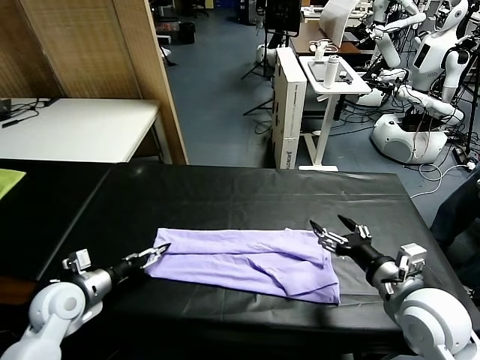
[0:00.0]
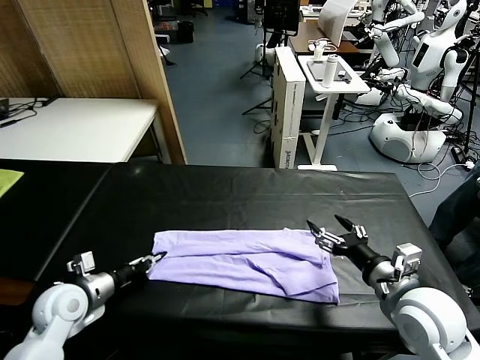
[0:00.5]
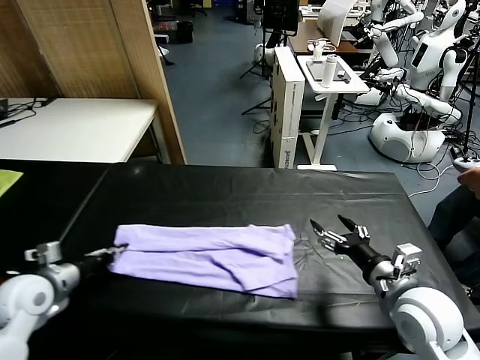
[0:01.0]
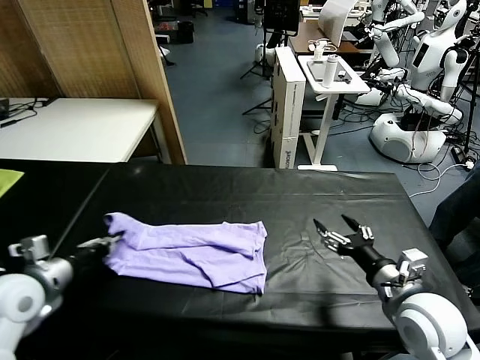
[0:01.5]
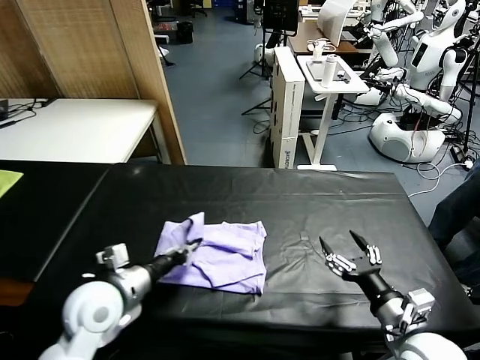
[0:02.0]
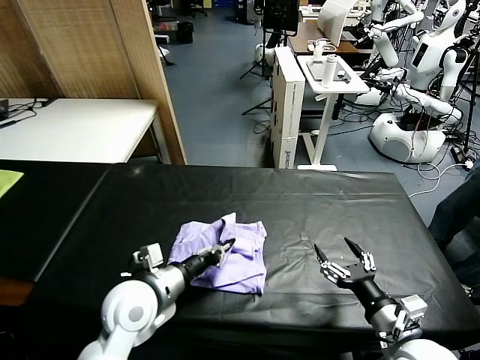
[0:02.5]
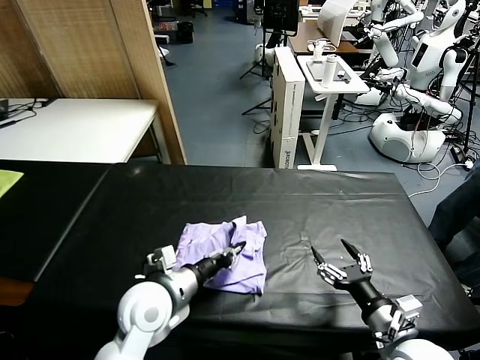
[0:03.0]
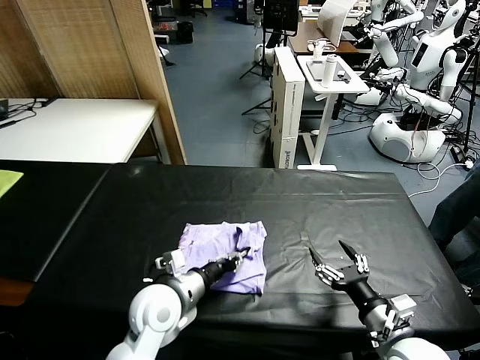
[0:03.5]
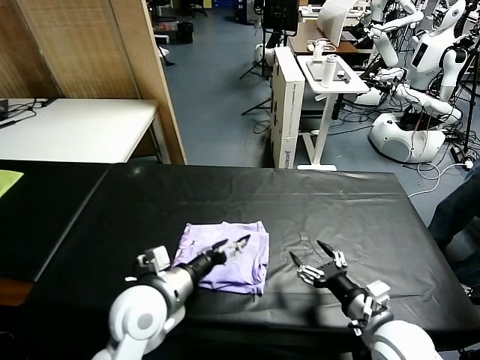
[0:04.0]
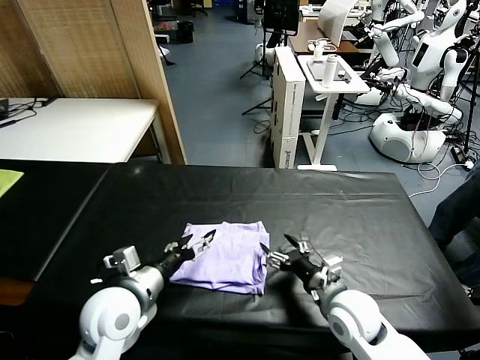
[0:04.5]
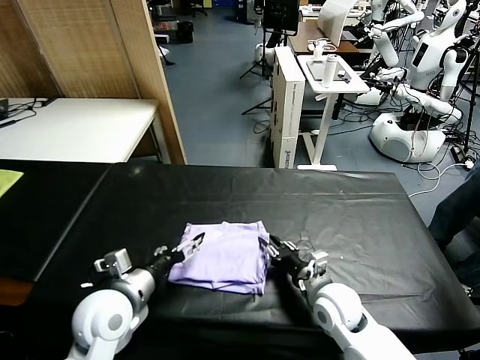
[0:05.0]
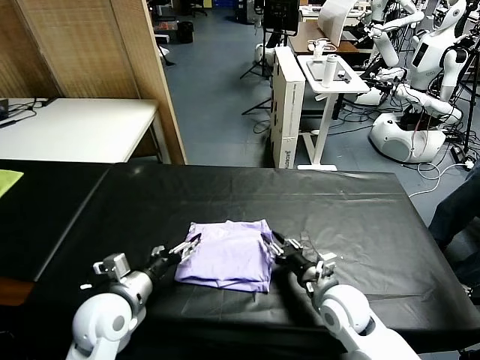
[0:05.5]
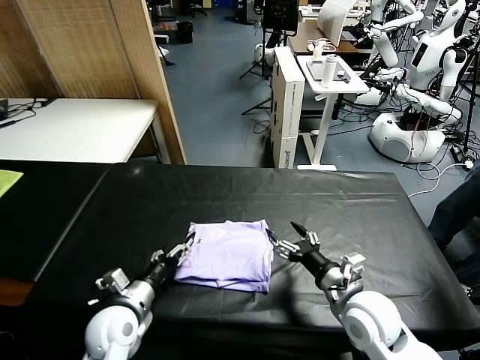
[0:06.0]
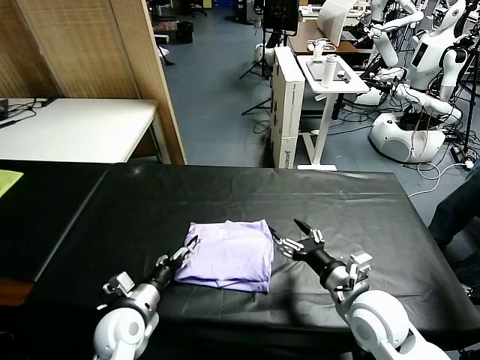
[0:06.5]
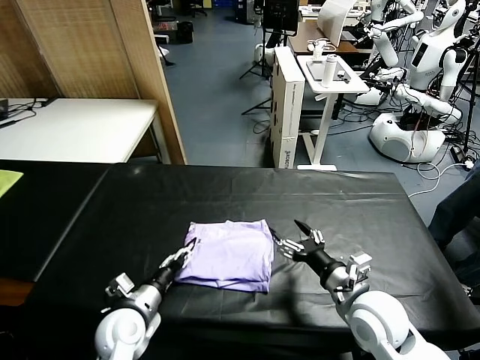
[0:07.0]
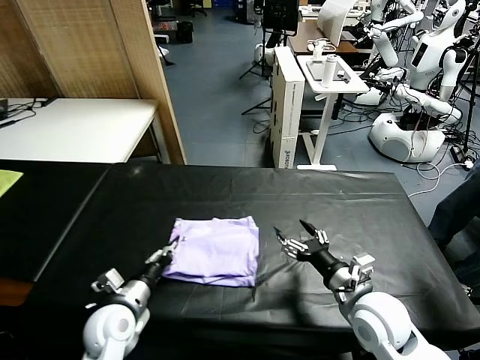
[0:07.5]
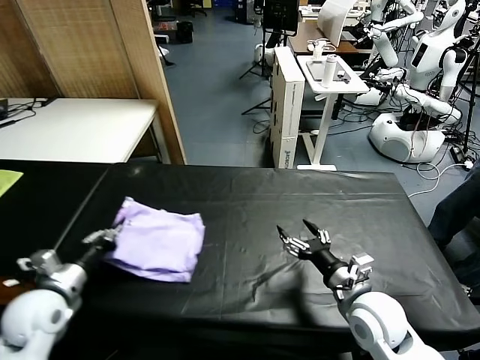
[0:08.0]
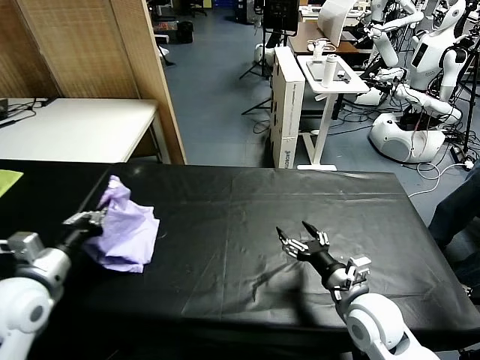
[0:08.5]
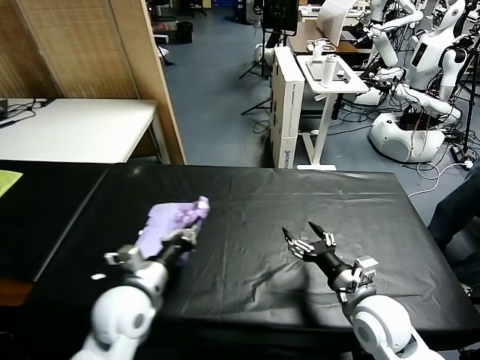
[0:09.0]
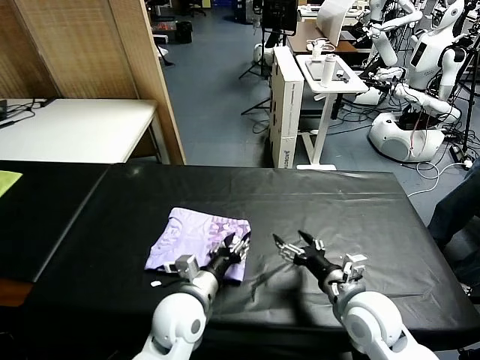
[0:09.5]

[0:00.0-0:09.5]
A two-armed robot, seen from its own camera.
Task of the whole recording: fold and organize the clothes.
Step, 0:01.0 to 0:03.5: use the left gripper to drag the left edge of the fabric to the left and folds it over the right edge.
0:00.0 to 0:02.0: The right gripper shifts about 10 cm backward and downward, while the left gripper goes some 15 cm to the right and upward, and closes up.
0:02.0 to 0:04.0: The right gripper changes place by about 5 cm, while the left gripper goes some 10 cm to the right, and opens its fingers.
0:04.0 to 0:05.5: The left gripper goes roughly 10 cm to the left. The right gripper is displaced forward and to the left by about 10 cm, and closes up.
0:05.5 to 0:07.5: The right gripper moves upward, approximately 5 cm, and opens up. The left gripper heads downward, covering approximately 10 cm, and closes up.
0:07.5 to 0:09.5: The left gripper is displaced to the right by about 15 cm, and opens.

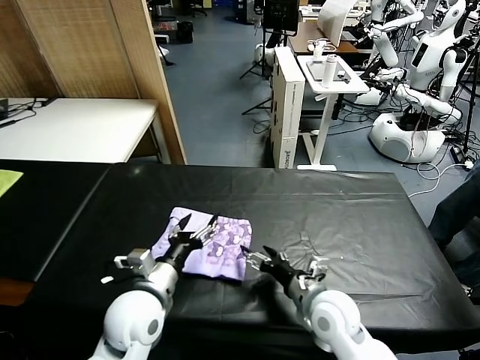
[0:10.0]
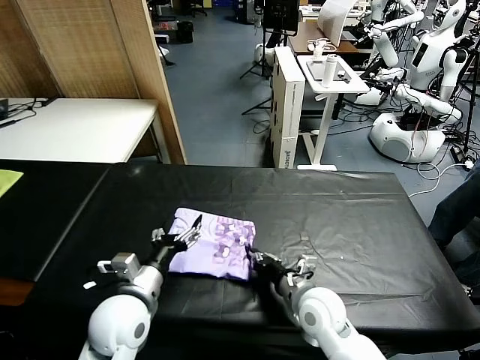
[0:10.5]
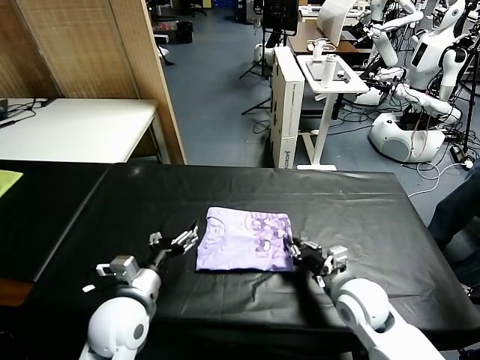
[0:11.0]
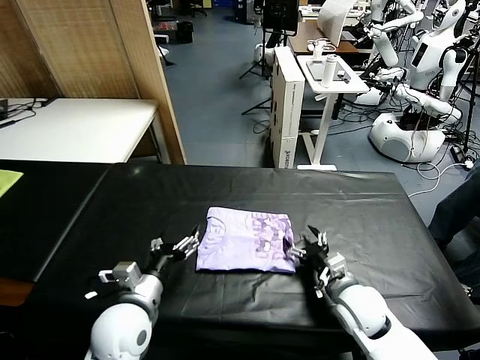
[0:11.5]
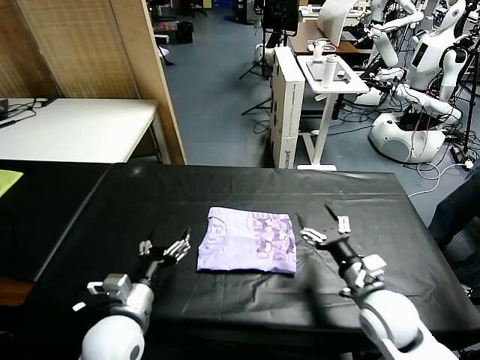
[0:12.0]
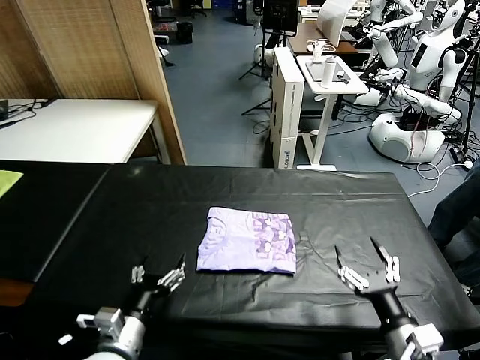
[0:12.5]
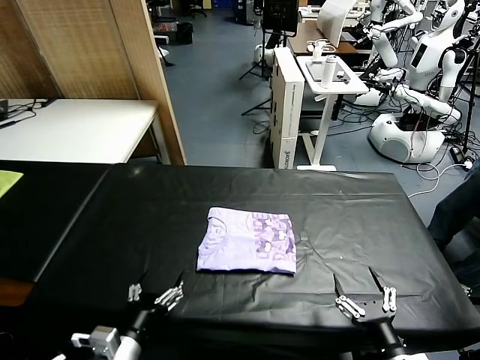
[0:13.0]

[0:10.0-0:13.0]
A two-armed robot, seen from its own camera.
Task of the whole recording: fold and organize the clothes.
Step, 0:10.0 to 0:11.0: Drag the clothes to the center of the table.
0:10.0 to 0:11.5: The right gripper travels to the right by approximately 5 cm, and closes, then reopens.
0:11.5 to 0:13.0: The right gripper moves backward, some 20 cm, while the left gripper goes about 10 cm backward.

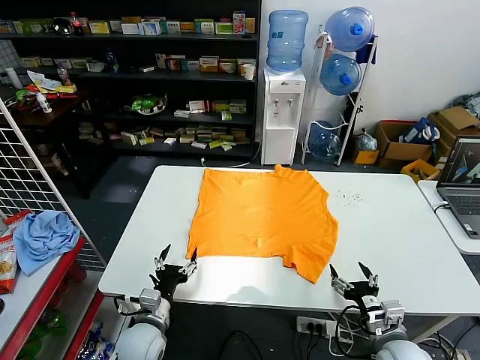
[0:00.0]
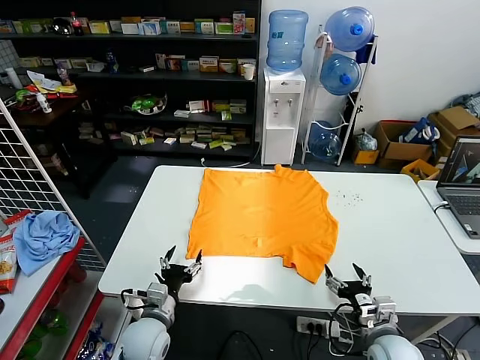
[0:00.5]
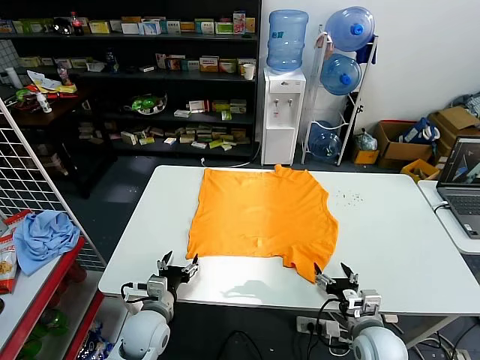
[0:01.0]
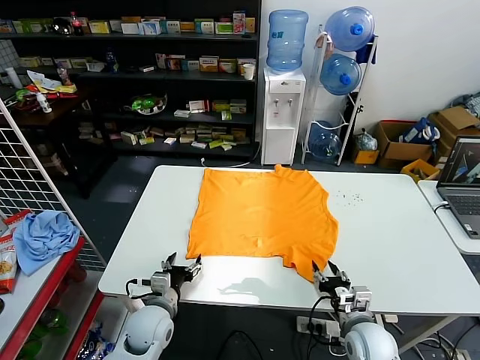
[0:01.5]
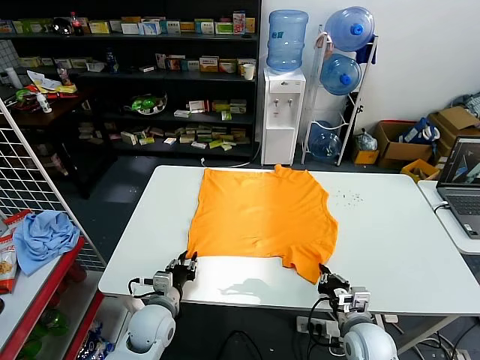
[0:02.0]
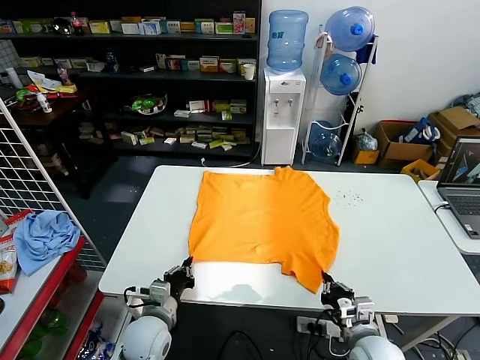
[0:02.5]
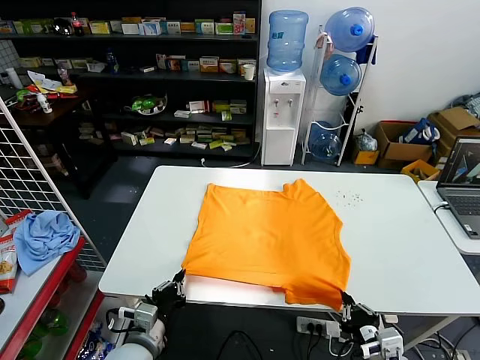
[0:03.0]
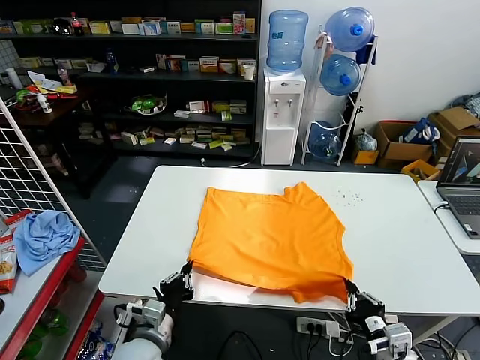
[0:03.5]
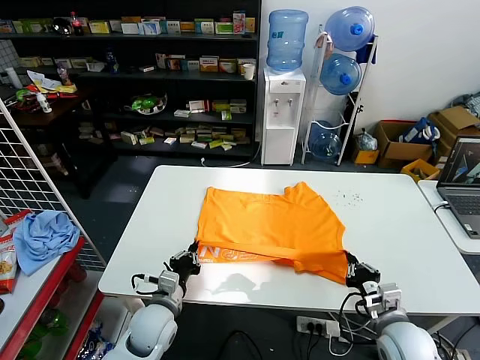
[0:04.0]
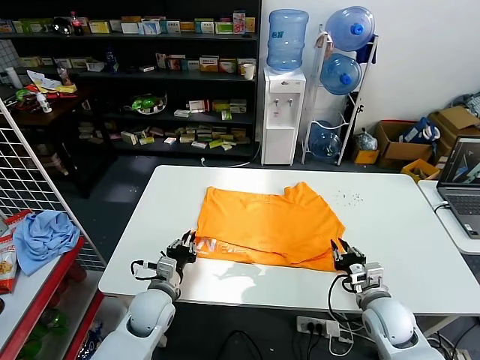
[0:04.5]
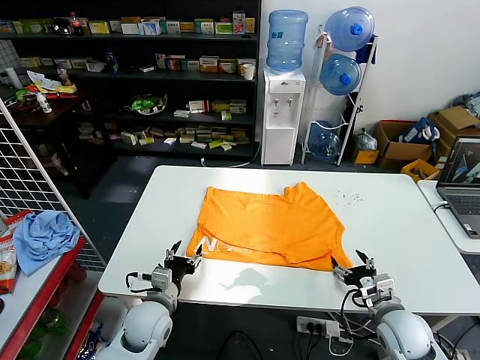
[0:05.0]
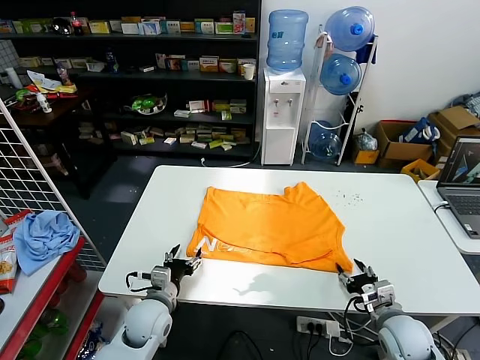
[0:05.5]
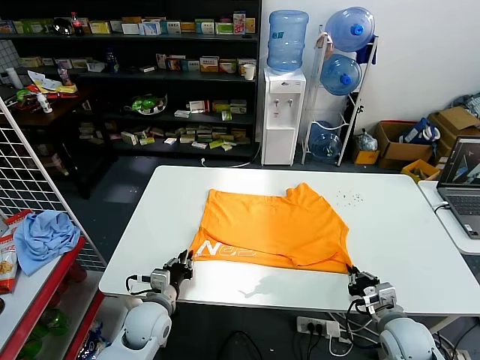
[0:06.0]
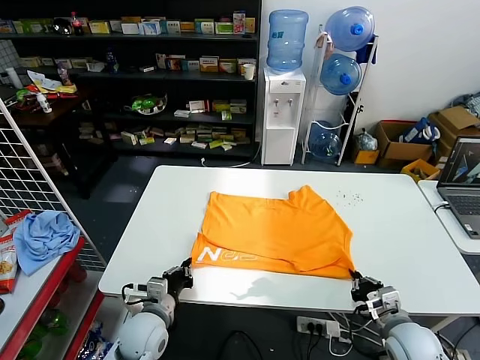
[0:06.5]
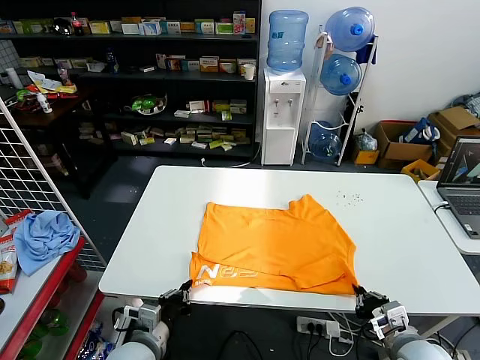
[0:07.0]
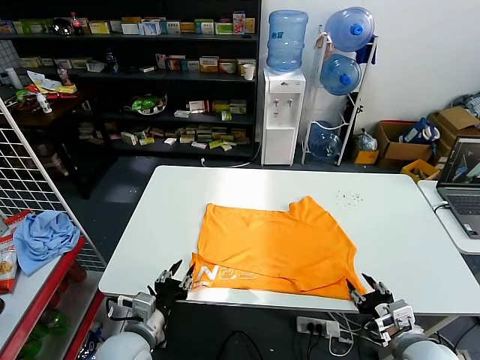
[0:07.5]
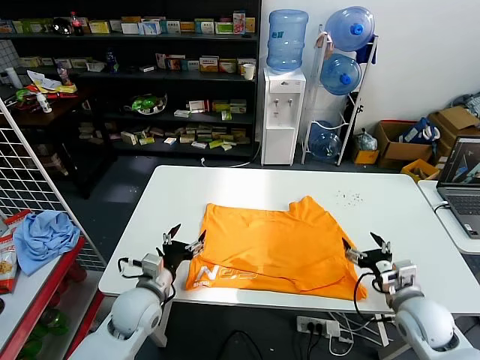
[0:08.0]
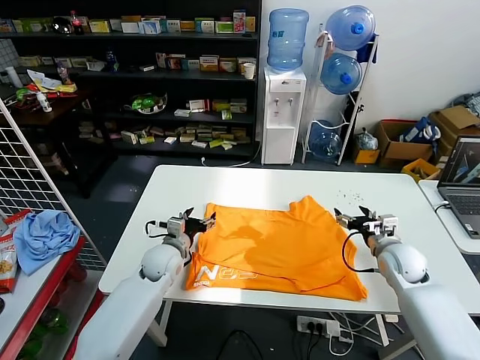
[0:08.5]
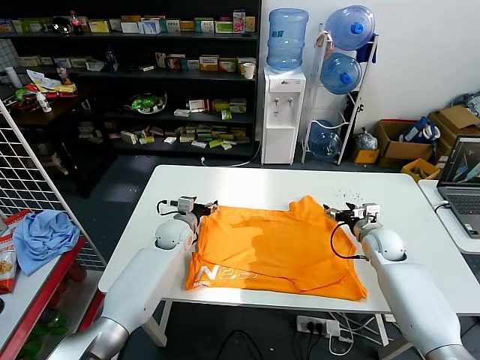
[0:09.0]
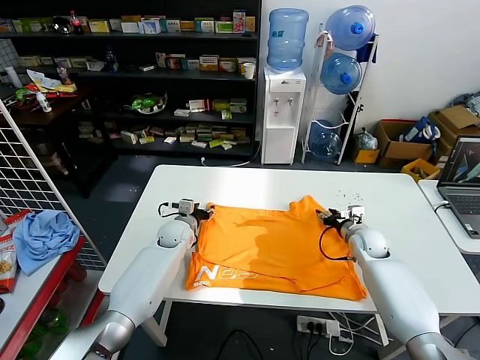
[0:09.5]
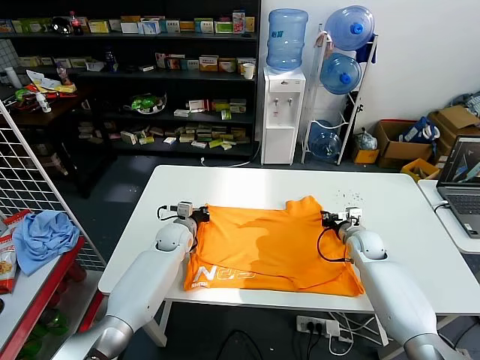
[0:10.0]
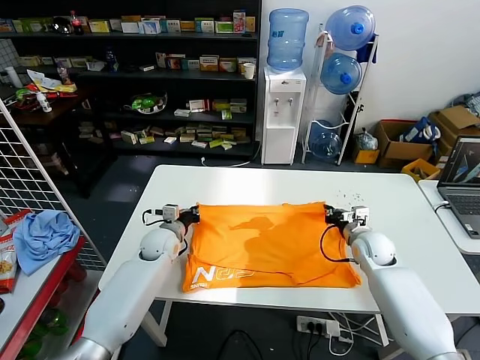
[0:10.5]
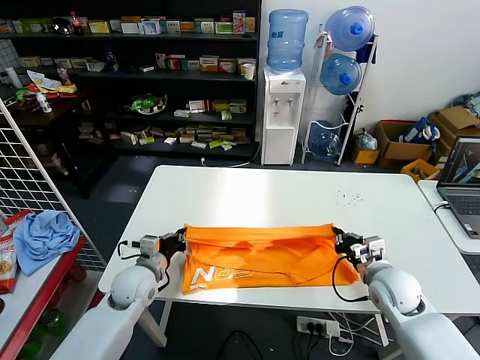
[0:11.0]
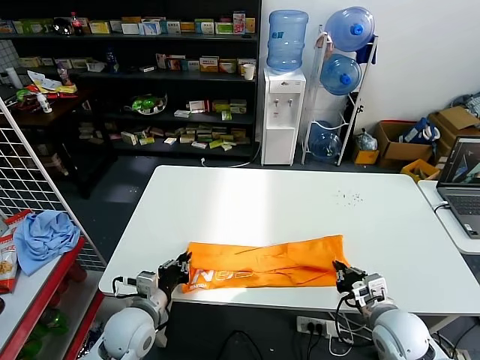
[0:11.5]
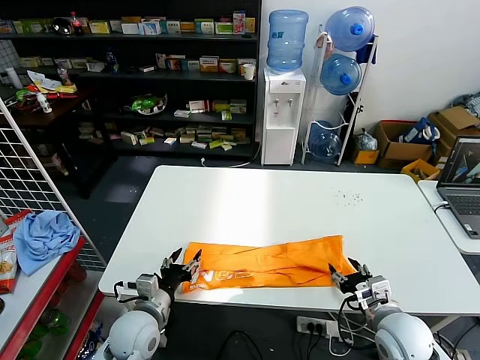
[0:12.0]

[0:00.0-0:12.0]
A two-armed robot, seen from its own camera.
Task of the whole recording: fold and organize the clothes.
Step, 0:00.0 to 0:02.0: use both grippers simultaneously to clamp the lower edge of the clothing fabric.
Step, 0:02.5 to 0:04.5: use both grippers to drag the lower edge of the fabric forward and fold it over the upper edge.
Step, 0:05.0 to 0:07.5: Drag the clothes downward with both gripper.
Step, 0:08.0 to 0:10.0: use both grippers simultaneously to clamp the upper edge of the clothing fabric.
0:02.0 to 0:04.0: The right gripper goes approximately 5 cm to the right and upward, and reaches some 10 cm backward, then returns; the left gripper reaches some 10 cm backward, then returns, and closes its fingers.
0:04.0 to 0:06.0: The left gripper opens, then closes once more. The right gripper opens, then closes once more.
0:06.0 to 0:08.0: The two grippers go approximately 5 cm upward. The right gripper opens up; the left gripper travels backward and back again, roughly 10 cm each way, and opens up.
0:08.0 to 0:10.0: The grippers both shift forward by about 20 cm. The right gripper closes its fingers. Meanwhile the left gripper closes its fingers.
0:10.0 to 0:12.0: Both grippers move backward, roughly 25 cm. The left gripper opens its fingers; the right gripper opens up.
